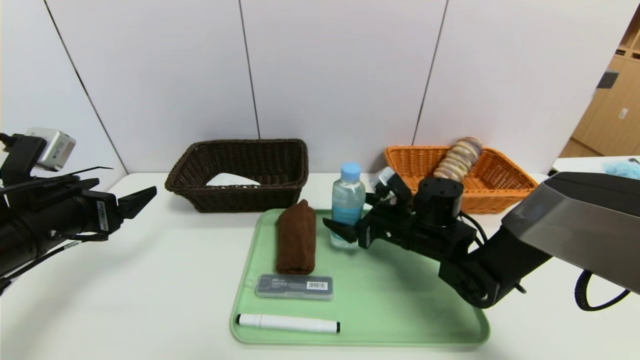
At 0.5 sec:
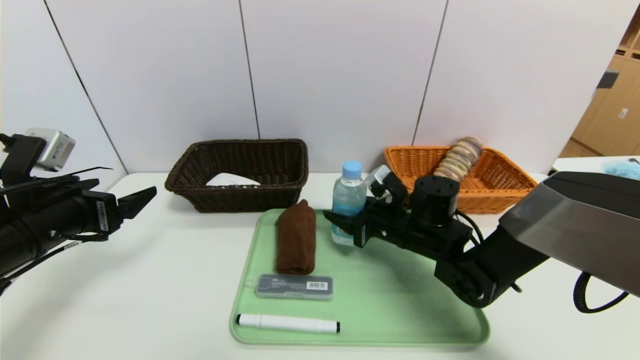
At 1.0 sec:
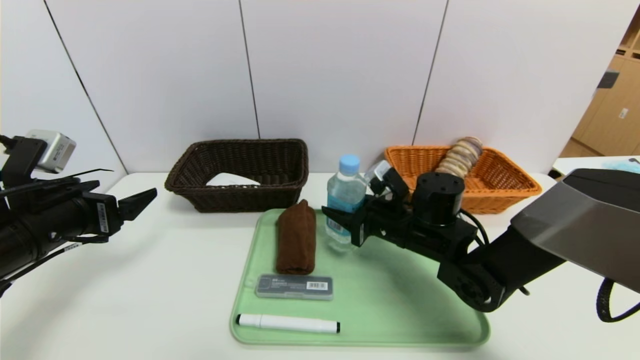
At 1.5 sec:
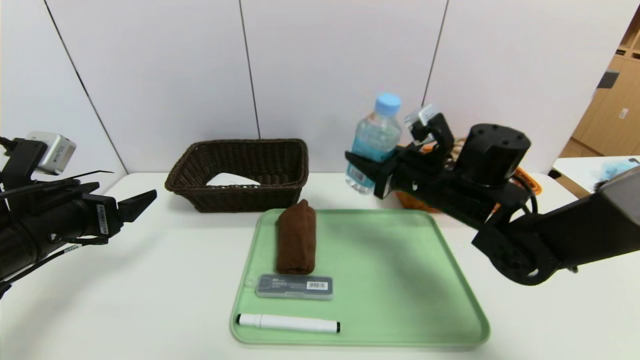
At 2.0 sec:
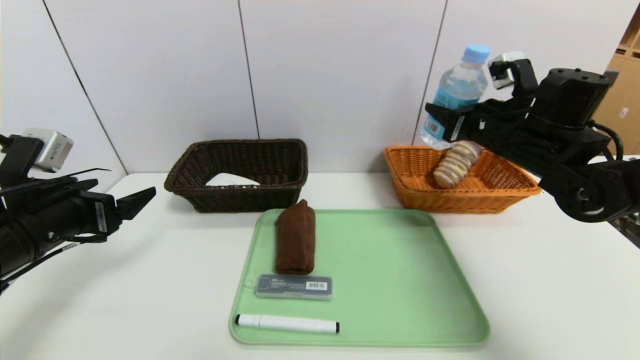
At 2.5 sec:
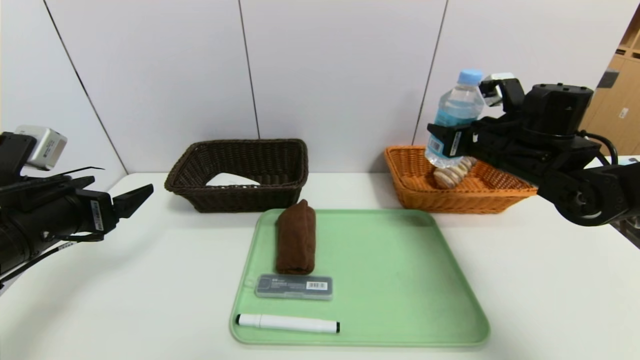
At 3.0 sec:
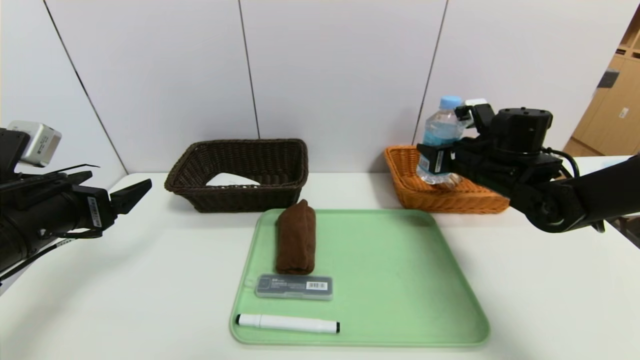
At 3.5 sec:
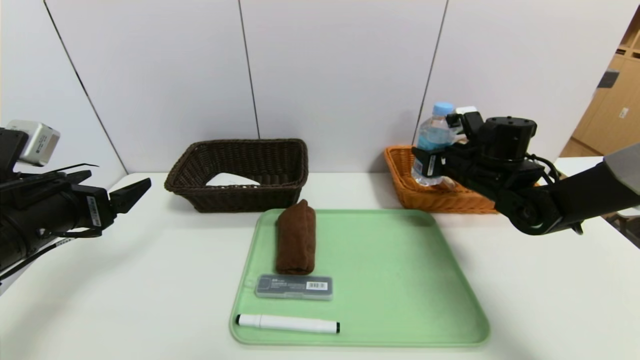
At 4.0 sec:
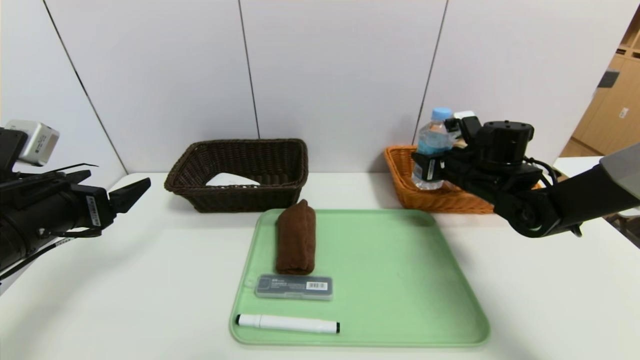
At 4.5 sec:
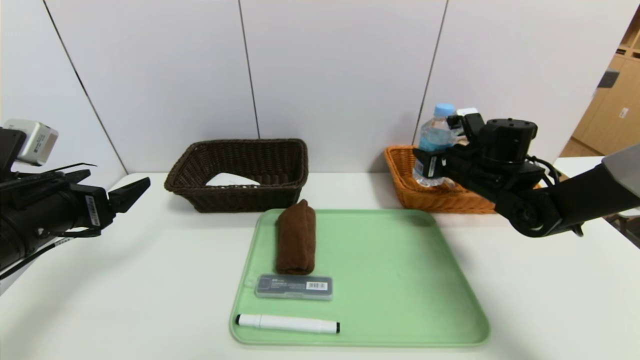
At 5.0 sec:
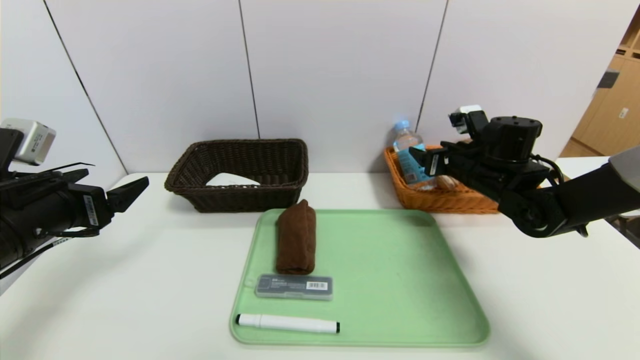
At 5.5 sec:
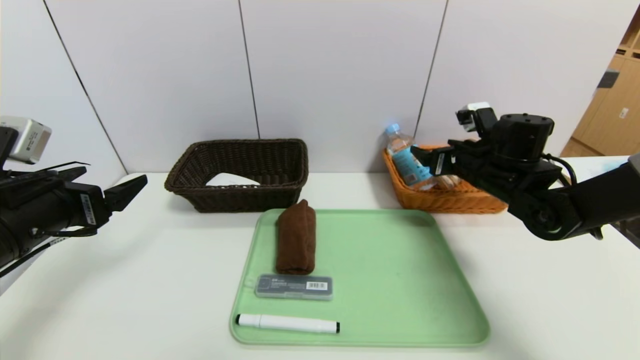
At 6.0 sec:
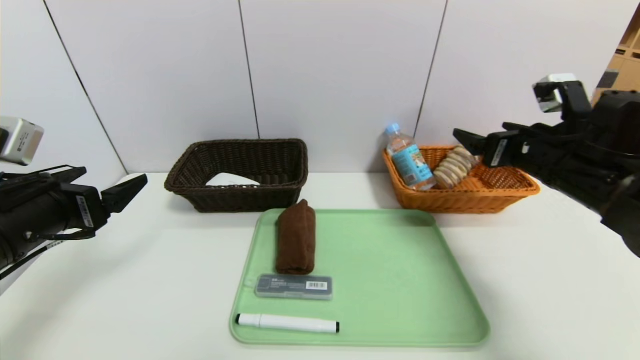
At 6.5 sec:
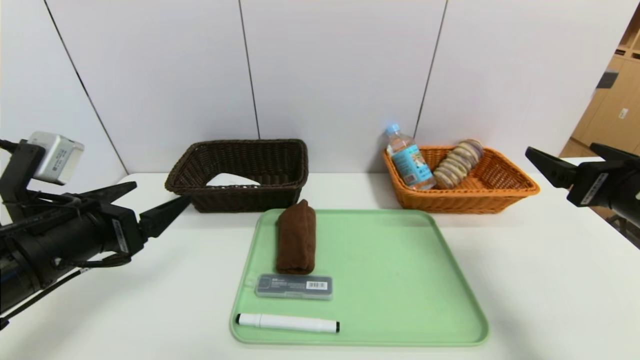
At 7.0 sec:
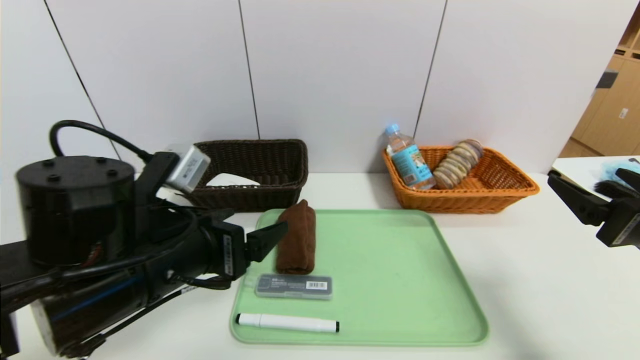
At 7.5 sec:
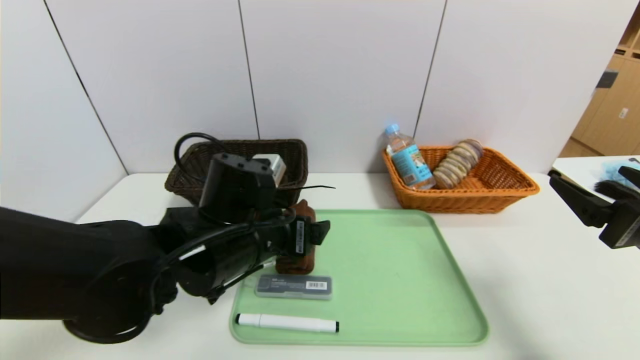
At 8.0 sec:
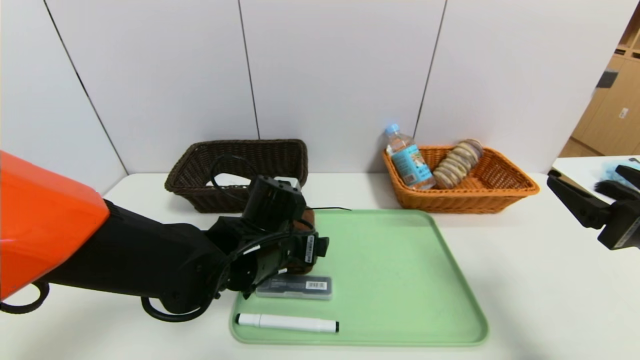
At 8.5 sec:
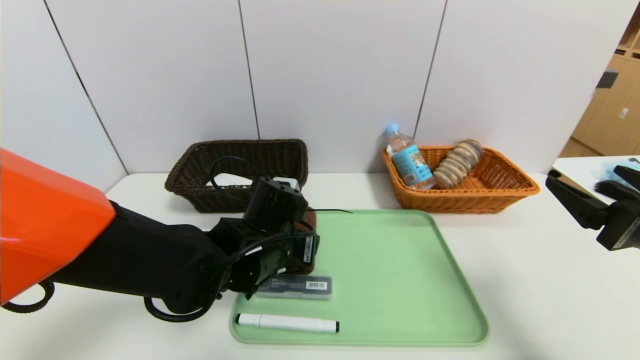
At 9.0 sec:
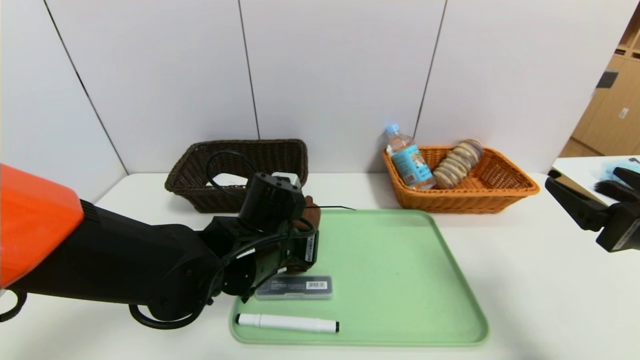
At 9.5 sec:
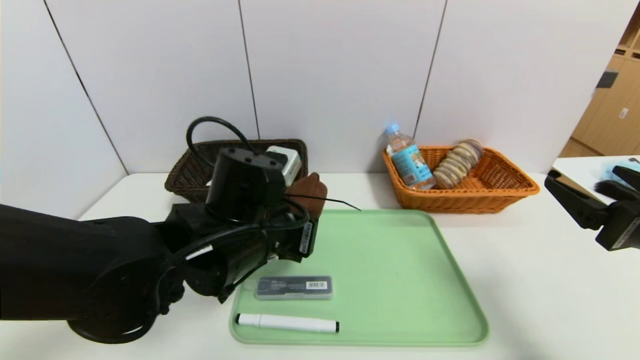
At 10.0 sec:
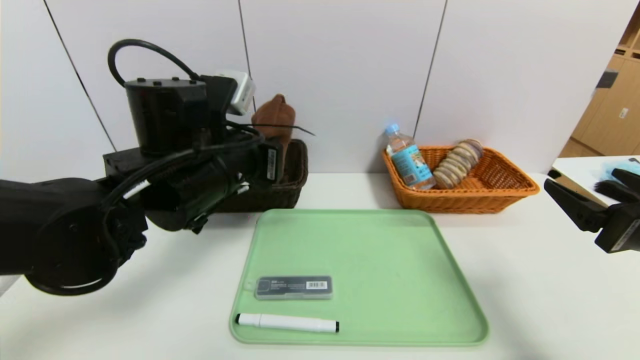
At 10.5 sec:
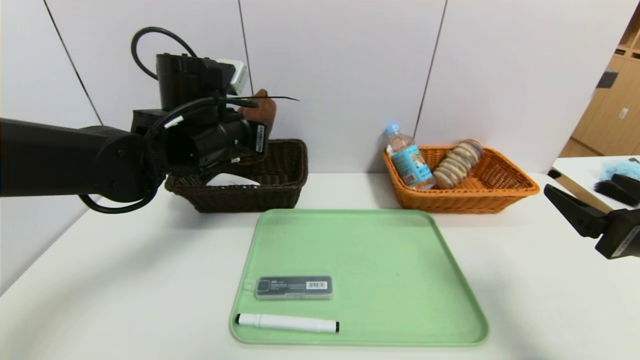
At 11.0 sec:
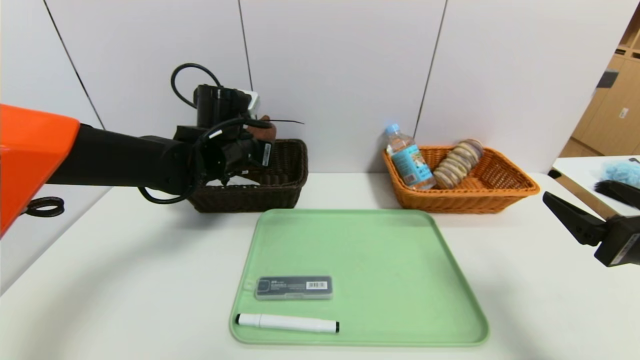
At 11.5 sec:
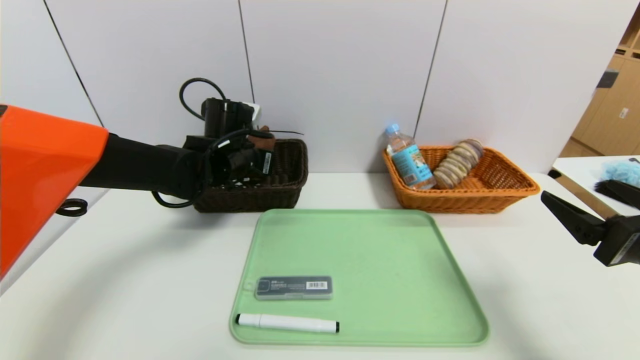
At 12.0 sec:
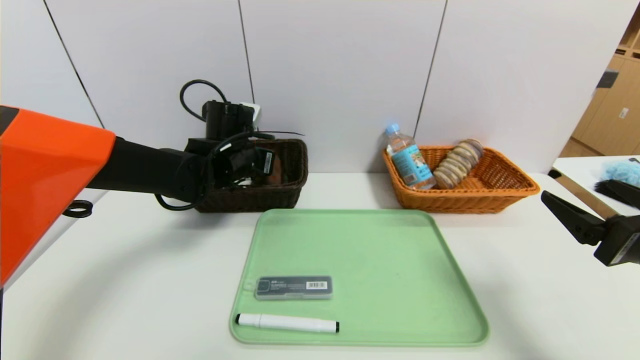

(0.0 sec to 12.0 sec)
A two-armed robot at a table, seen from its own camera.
Task of the whole recording: place the food in the right basket with the right gripper, and place the non food items in the left basket with the left gripper.
Step, 0.0 sec - 5.5 sec: Grasp the soda water and put it in the right basket.
0.0 sec - 2.0 sec: The right gripper heads upward and to the right, covering approximately 20 cm, and closes up.
2.0 sec - 4.0 sec: The right gripper moves downward, some 10 cm.
4.0 sec - 6.0 sec: The right gripper shifts approximately 15 cm backward and upward, and opens its fingers.
6.0 sec - 8.0 sec: The left gripper shifts approximately 25 cm to the right, while the right gripper moves backward, some 15 cm.
8.0 sec - 10.0 sec: The left gripper is displaced upward and to the left by about 15 cm, and closes.
10.0 sec - 12.0 sec: The left gripper goes roughly 15 cm forward and downward, and opens its fingers.

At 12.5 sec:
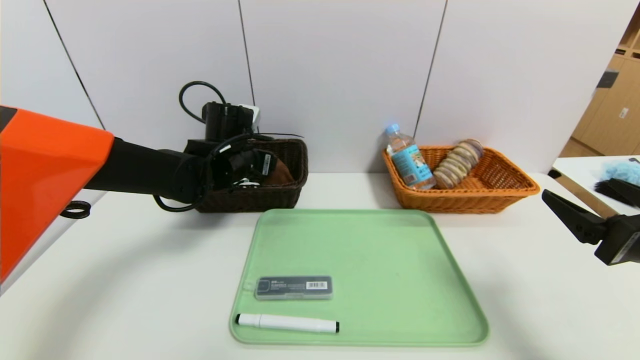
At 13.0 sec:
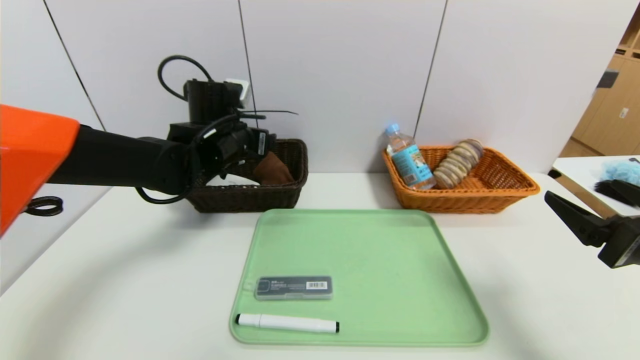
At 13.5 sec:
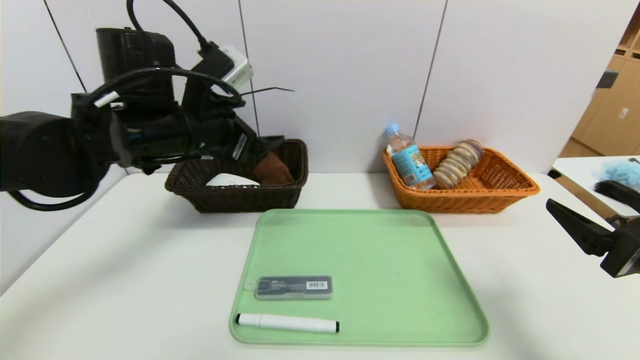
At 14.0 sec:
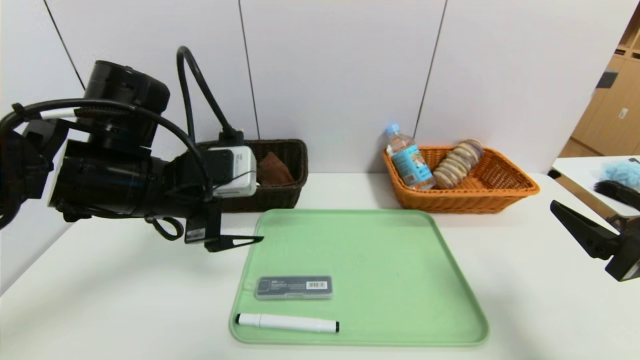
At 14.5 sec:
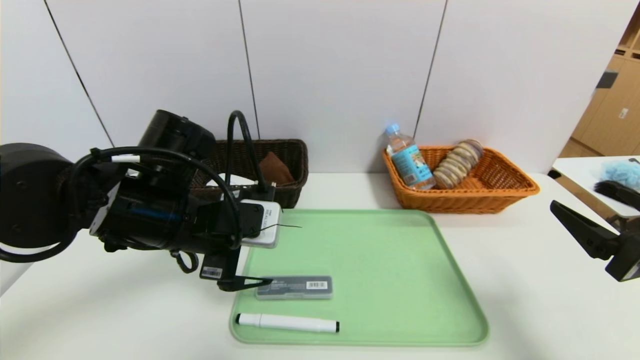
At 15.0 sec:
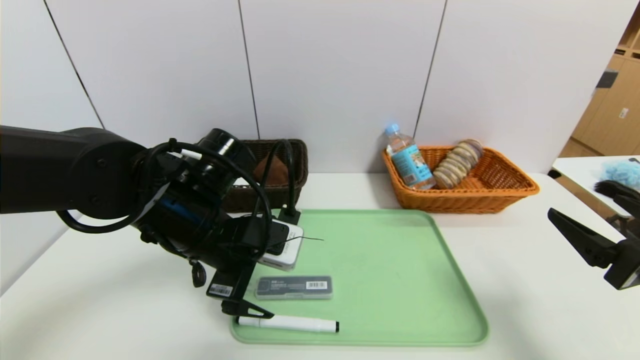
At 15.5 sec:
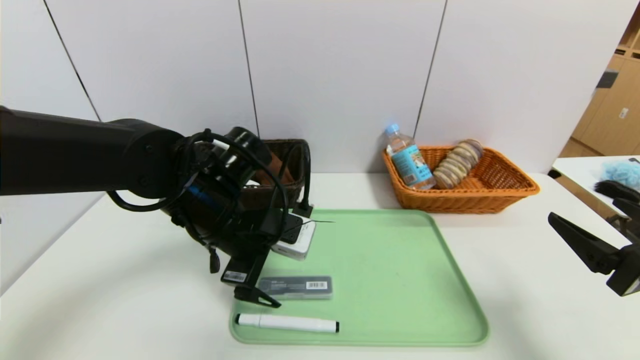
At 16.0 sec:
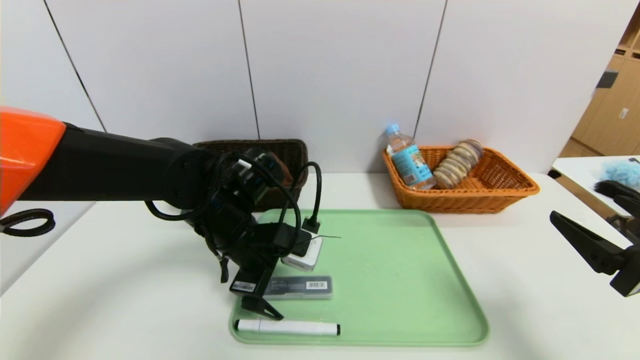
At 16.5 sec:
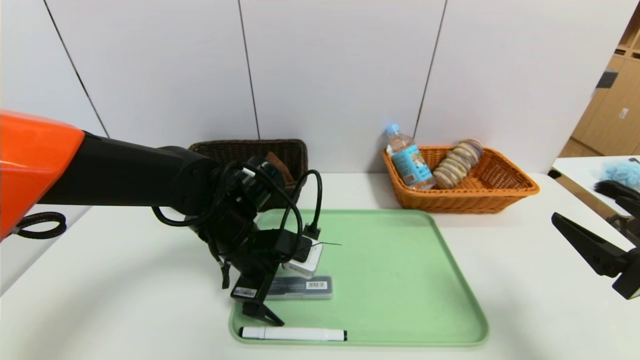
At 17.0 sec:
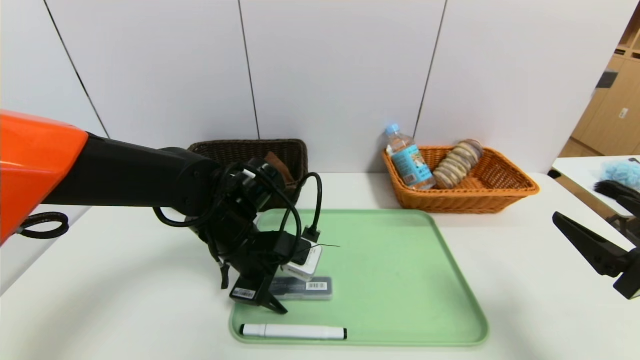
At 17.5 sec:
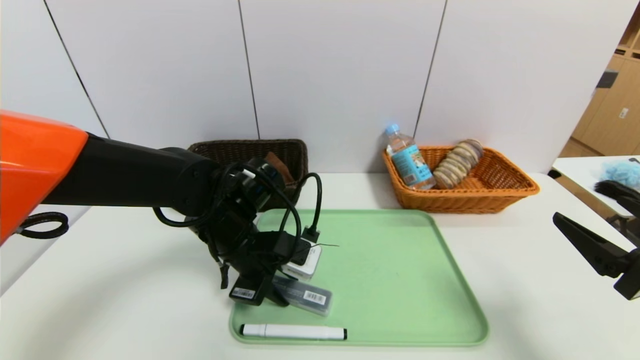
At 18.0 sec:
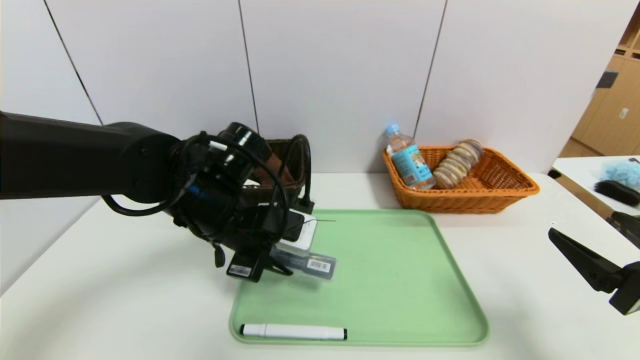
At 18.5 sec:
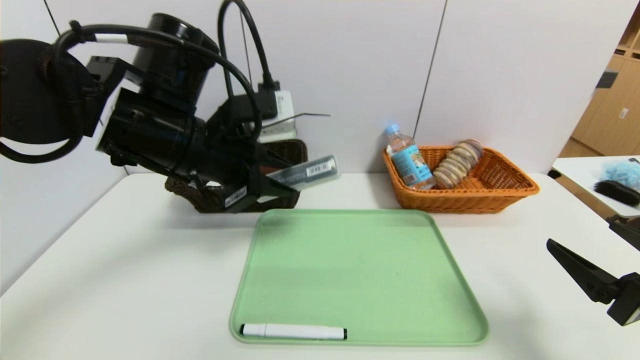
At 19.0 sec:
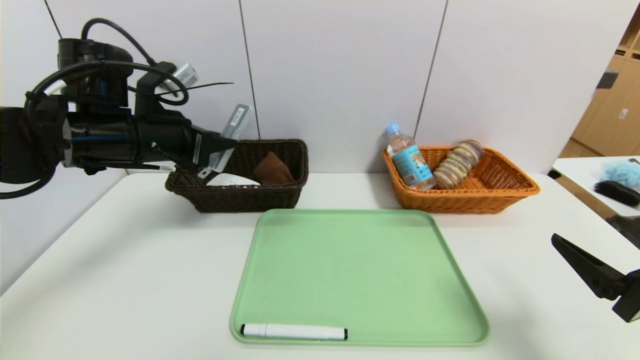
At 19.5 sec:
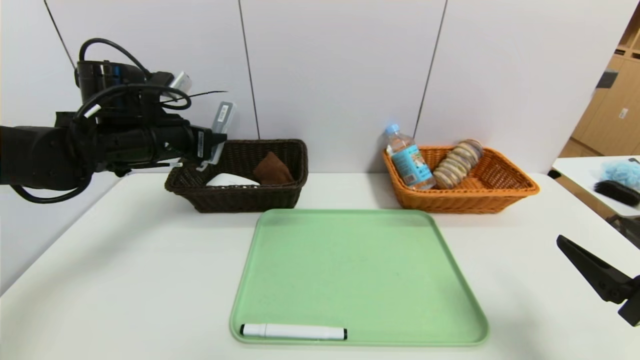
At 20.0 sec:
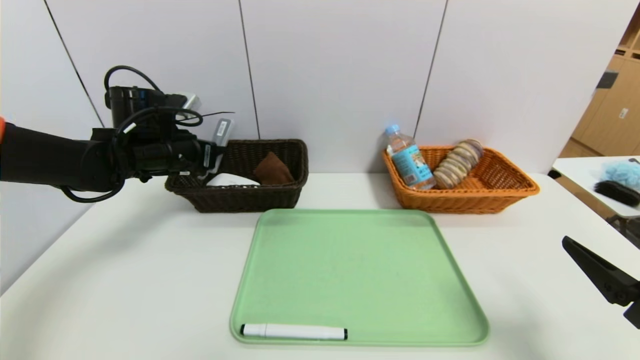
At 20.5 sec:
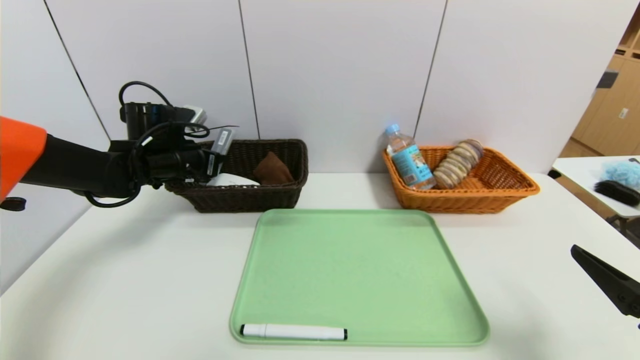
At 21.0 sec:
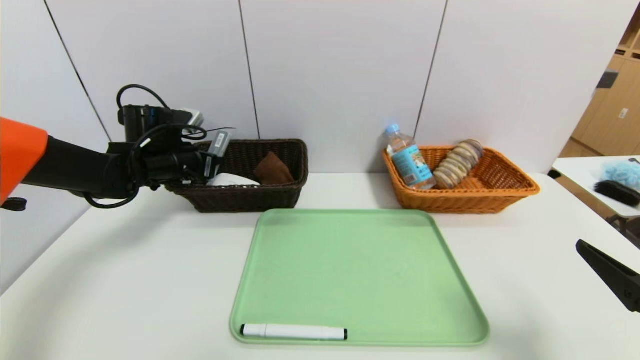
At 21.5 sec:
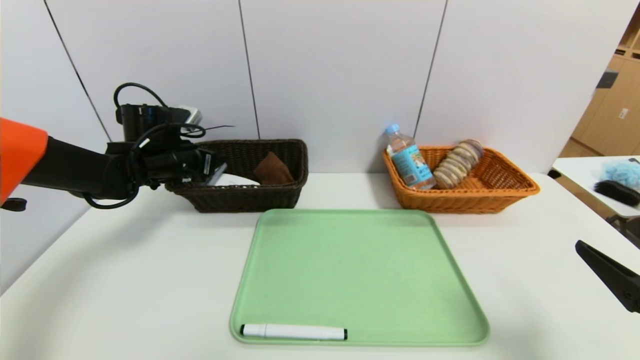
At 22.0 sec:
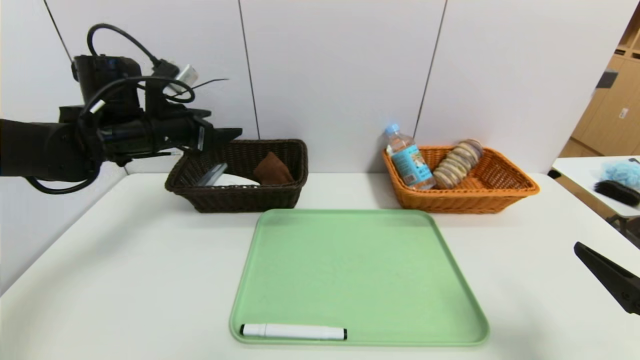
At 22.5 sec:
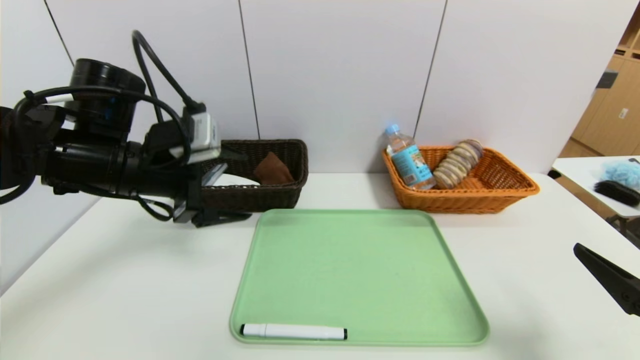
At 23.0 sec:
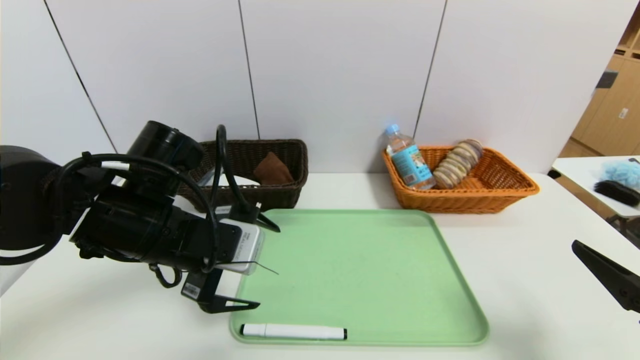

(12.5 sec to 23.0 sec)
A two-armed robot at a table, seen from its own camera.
Task of the whole recording: place the food in the right basket with the right gripper, and place the non food items in the left basket with the left gripper.
Step, 13.5 sec - 22.0 sec: Grasp the compass and put it in the left basket.
12.5 sec - 14.5 sec: The left gripper moves backward, about 15 cm.
14.5 sec - 16.5 sec: The left gripper goes roughly 5 cm downward.
16.5 sec - 19.0 sec: The left gripper shifts about 15 cm upward and to the left, and closes its fingers.
19.0 sec - 21.0 sec: The left gripper heads forward and downward, covering approximately 15 cm.
21.0 sec - 23.0 sec: The left gripper travels backward and to the right by some 20 cm, and opens its fingers.
